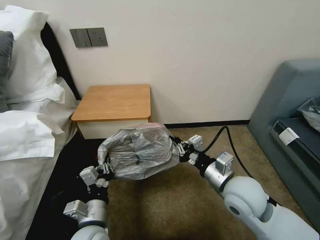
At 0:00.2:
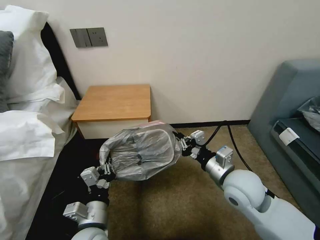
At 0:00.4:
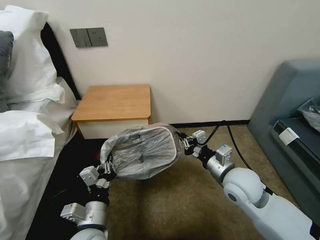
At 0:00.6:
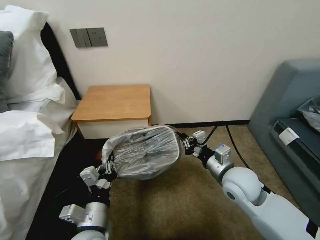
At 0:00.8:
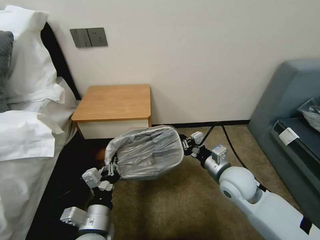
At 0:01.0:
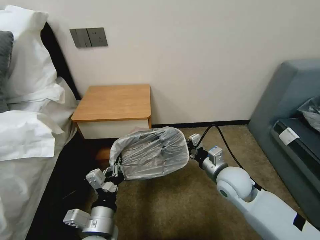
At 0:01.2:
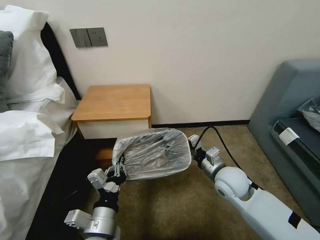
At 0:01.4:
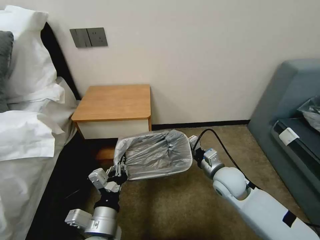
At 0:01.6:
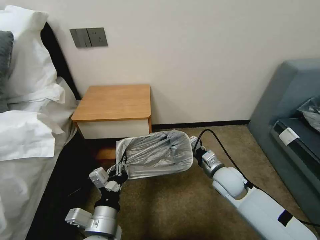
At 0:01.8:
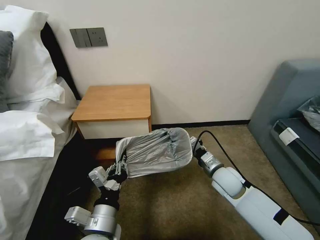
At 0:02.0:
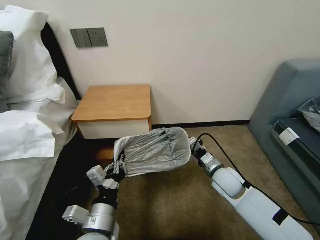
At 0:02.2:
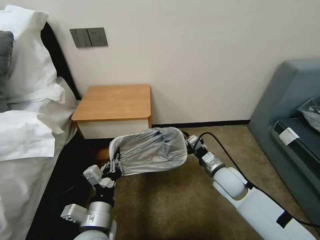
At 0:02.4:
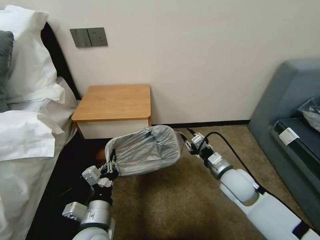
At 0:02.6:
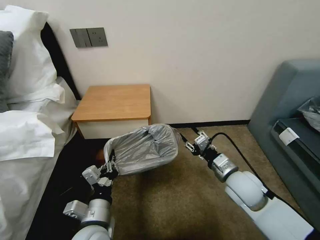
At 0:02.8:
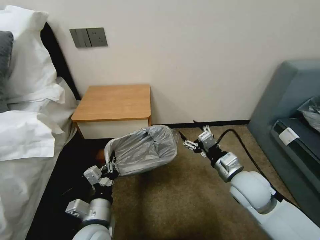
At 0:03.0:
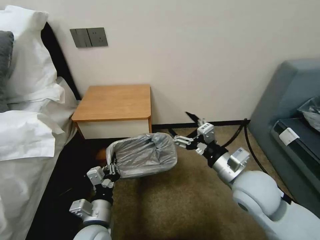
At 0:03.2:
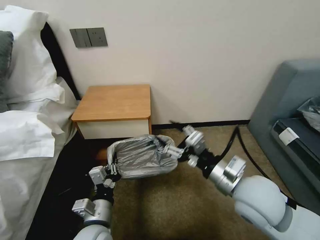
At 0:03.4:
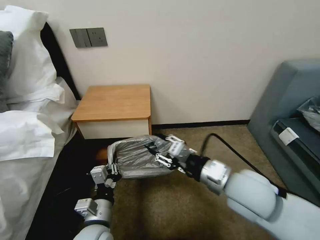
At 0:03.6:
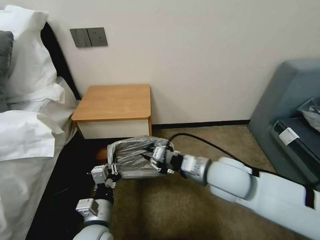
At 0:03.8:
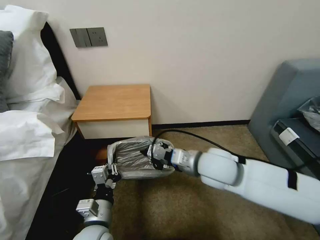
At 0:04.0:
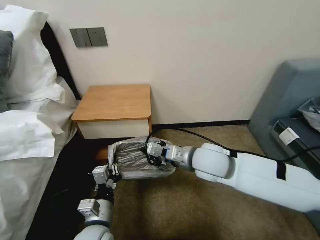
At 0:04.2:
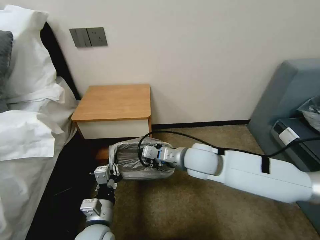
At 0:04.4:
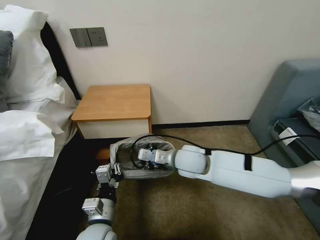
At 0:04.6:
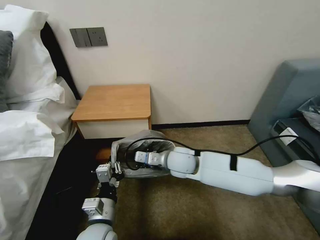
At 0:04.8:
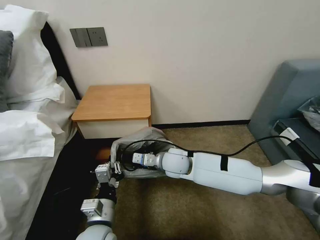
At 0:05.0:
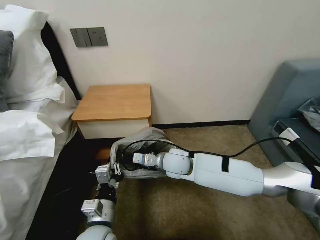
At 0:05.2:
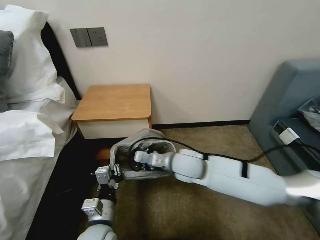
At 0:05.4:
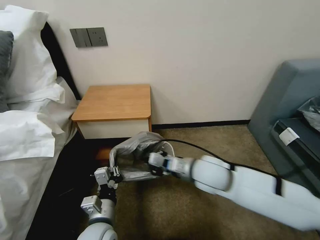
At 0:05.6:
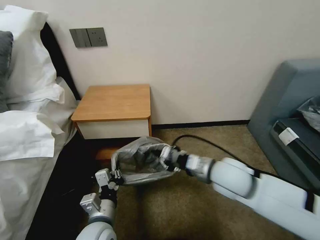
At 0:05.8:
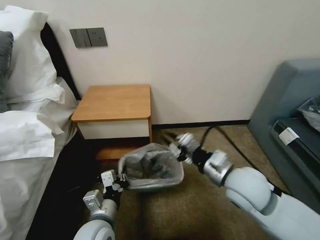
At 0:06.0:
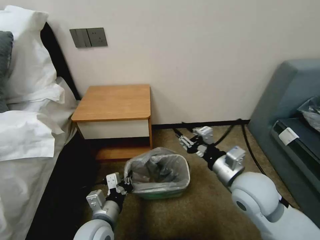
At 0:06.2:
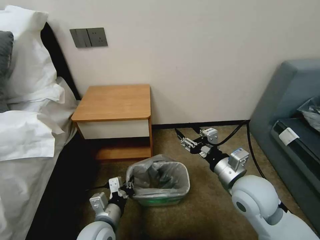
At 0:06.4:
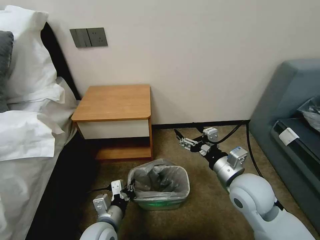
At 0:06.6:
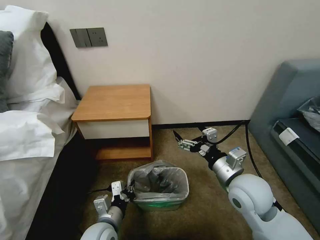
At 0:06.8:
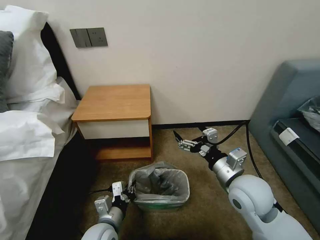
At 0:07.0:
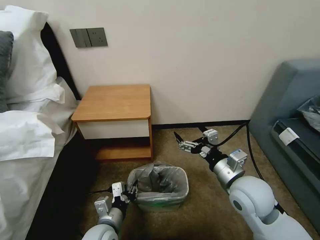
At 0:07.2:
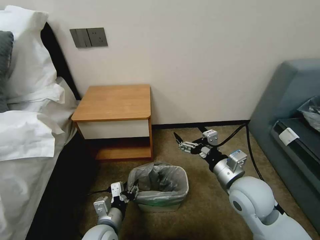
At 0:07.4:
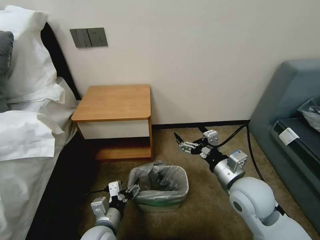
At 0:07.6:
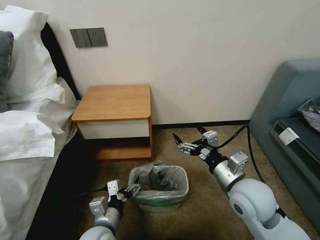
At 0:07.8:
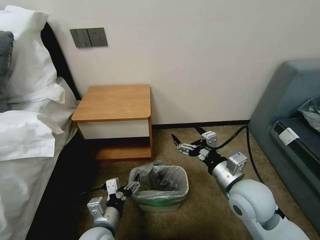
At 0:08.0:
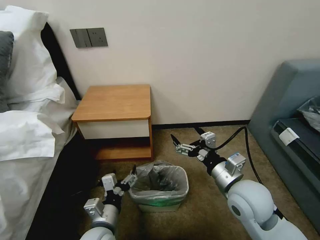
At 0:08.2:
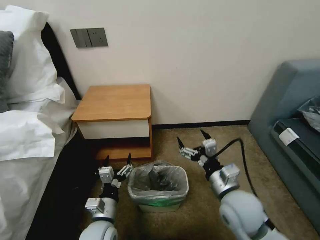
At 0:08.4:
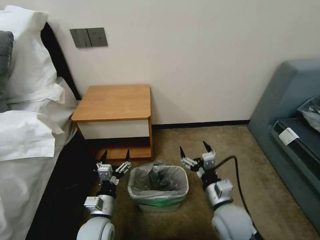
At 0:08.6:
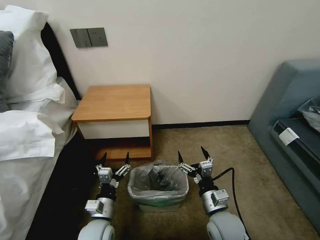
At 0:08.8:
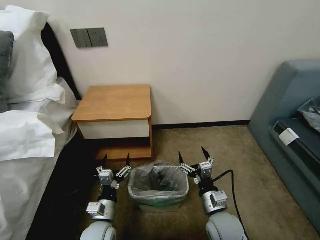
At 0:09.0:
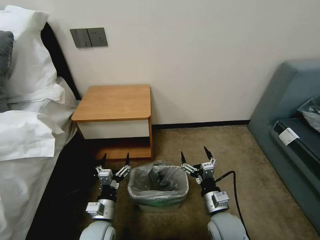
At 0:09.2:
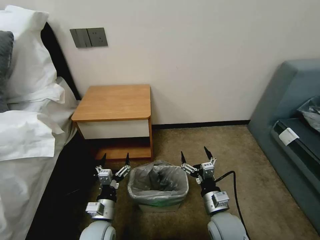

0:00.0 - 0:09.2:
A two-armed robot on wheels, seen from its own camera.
Task of the whole recording: Pick up the garbage bag from the table and place it over the trash can.
0:00.0 - 0:01.6: The right gripper goes some 15 cm downward and forward.
0:01.6 - 0:03.0: The right gripper travels upward and backward by approximately 15 cm, and opens its fingers. Meanwhile the left gripper shifts by some 5 cm.
0:03.0 - 0:04.6: The right gripper moves to the left, forward and downward, about 20 cm, and closes up.
0:04.6 - 0:06.2: The right gripper travels to the right and backward by roughly 20 cm, and opens.
0:06.2 - 0:07.6: The left gripper opens its fingers; the right gripper opens its fingers.
0:07.6 - 0:09.2: The right gripper is displaced downward by some 15 cm, while the left gripper heads downward, covering about 5 cm.
